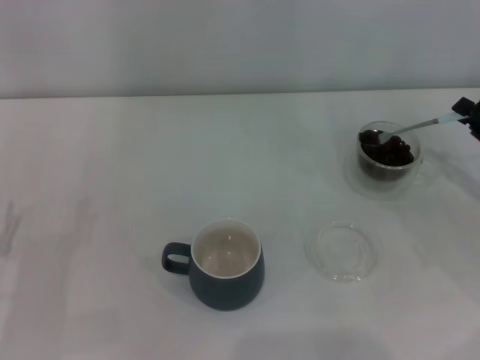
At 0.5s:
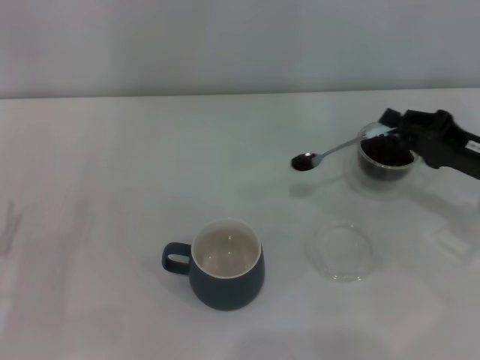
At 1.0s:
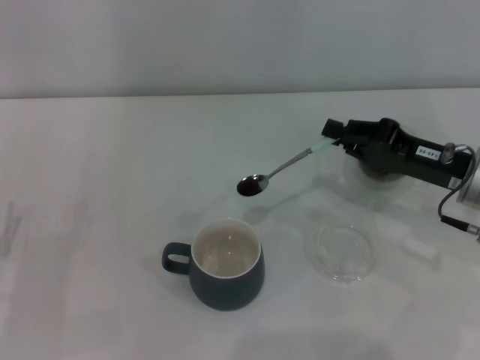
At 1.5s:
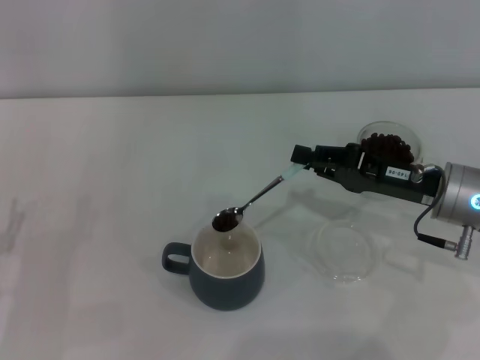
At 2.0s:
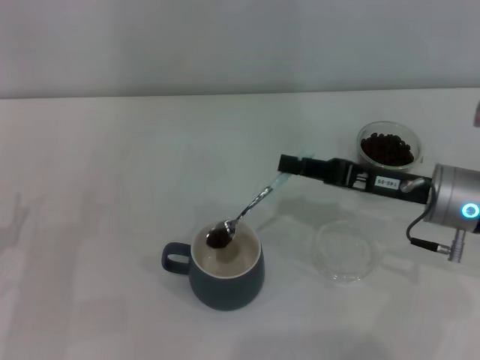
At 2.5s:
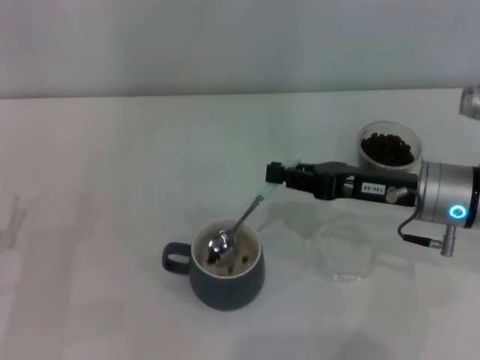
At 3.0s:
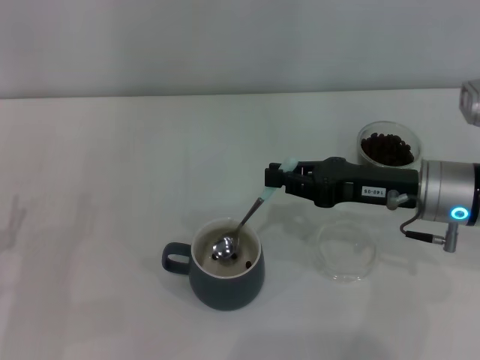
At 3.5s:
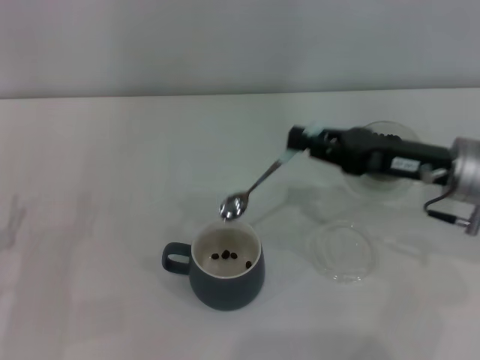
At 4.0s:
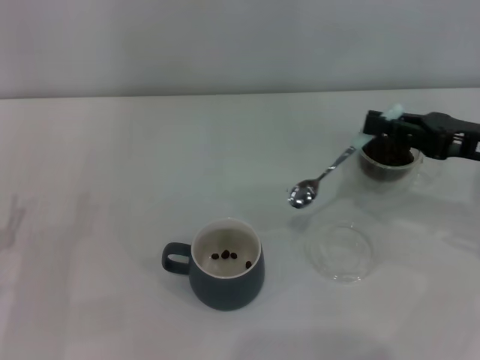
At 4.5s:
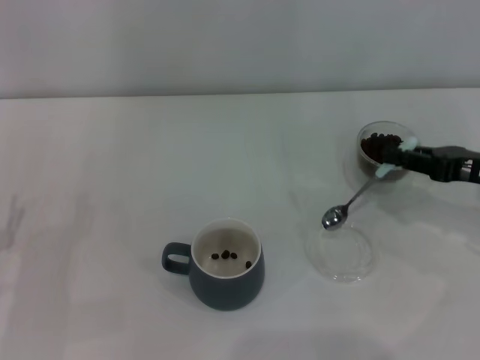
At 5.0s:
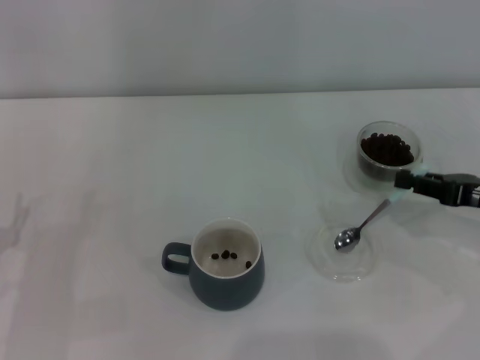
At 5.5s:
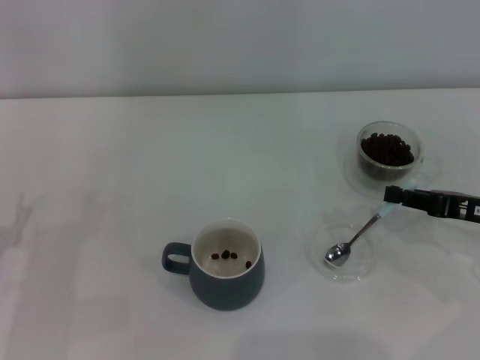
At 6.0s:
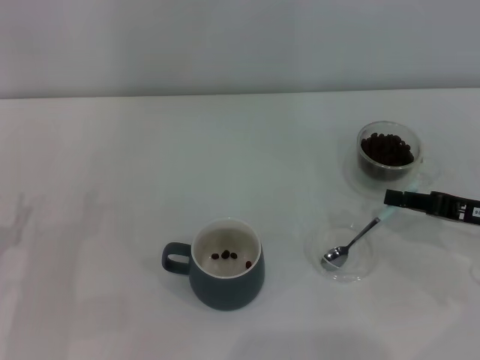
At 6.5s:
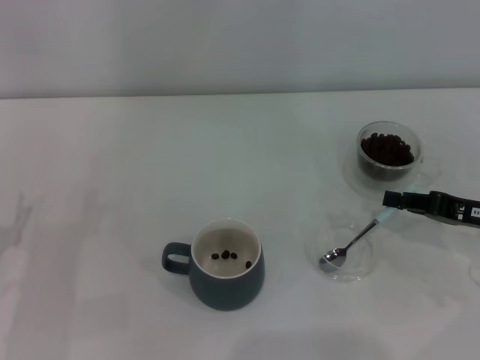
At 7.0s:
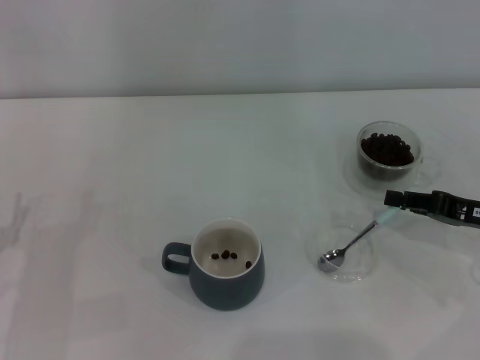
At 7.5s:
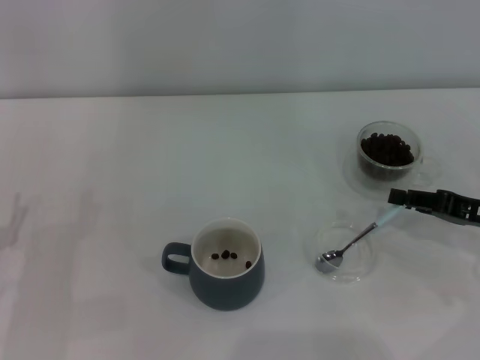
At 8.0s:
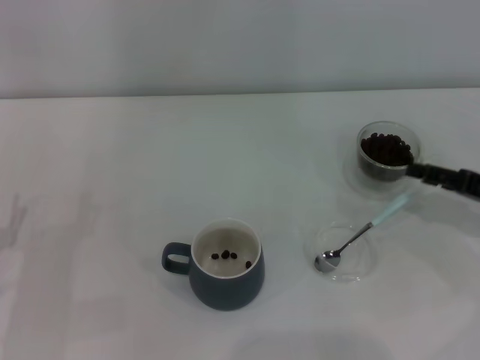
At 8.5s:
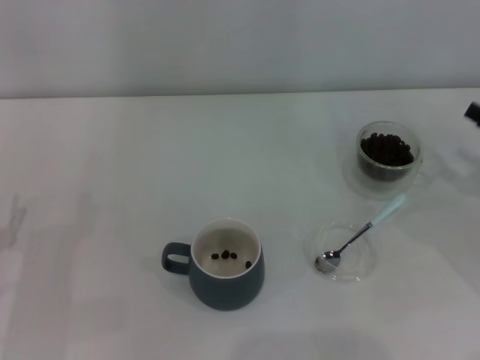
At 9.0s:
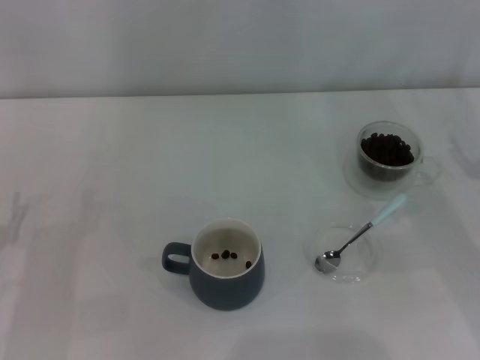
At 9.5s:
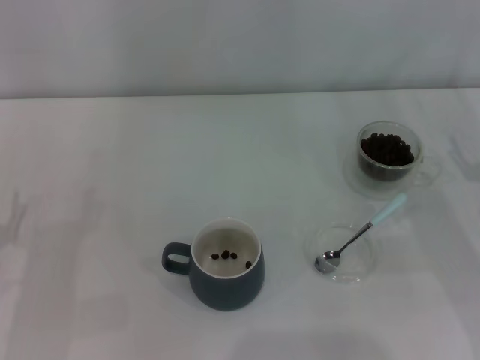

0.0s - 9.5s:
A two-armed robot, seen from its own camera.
Task of the whole recording: Use a blue spoon to take out the coffee beans from the glass and pour them into the gray cup.
Step, 0.0s - 3.5s: Scoop a spoonful of beans into the cup with the right gripper.
Step, 4.0s - 7.5s: Place the spoon back in its original place with the right gripper.
0.0s - 2.0s: The right gripper moves to the left, some 15 cm.
2.0s - 4.0s: The right gripper goes about 10 cm to the right.
4.0s - 5.5s: The right gripper shifts roughly 5 cm downward.
7.5s - 9.5s: The right gripper opens up.

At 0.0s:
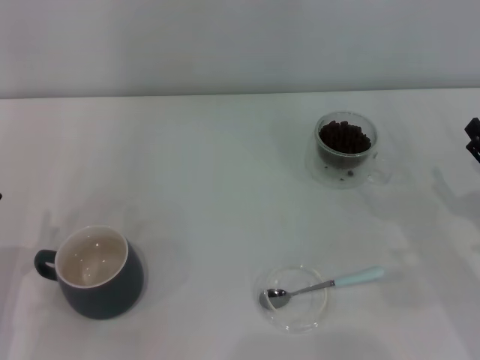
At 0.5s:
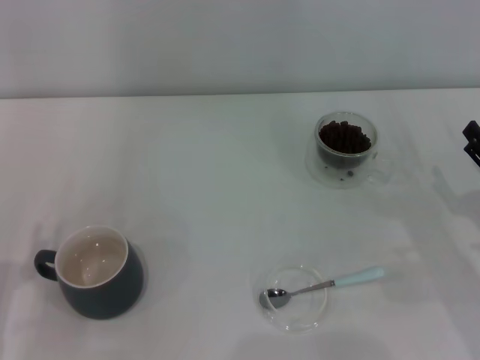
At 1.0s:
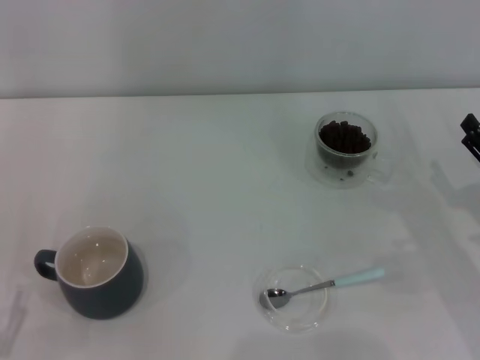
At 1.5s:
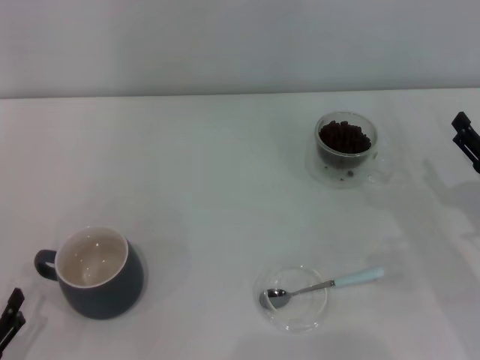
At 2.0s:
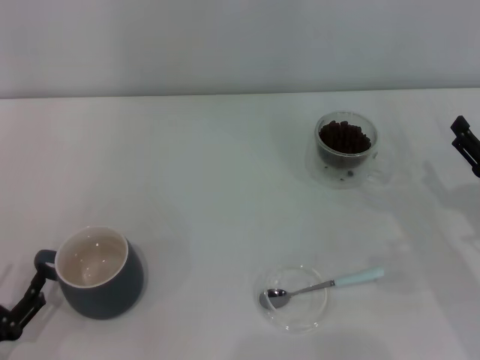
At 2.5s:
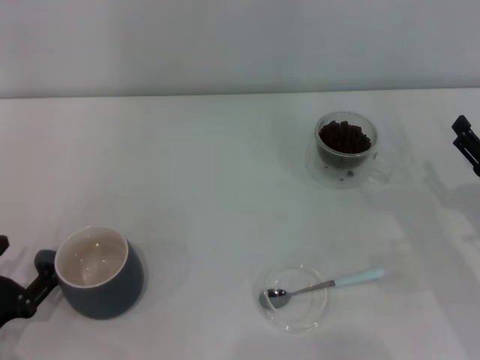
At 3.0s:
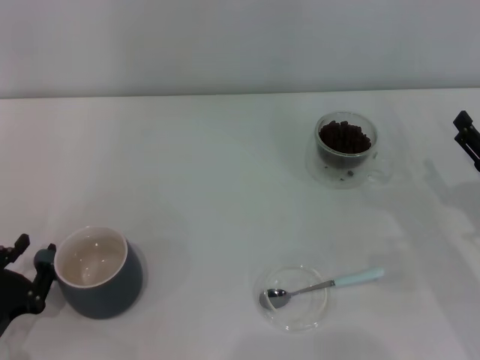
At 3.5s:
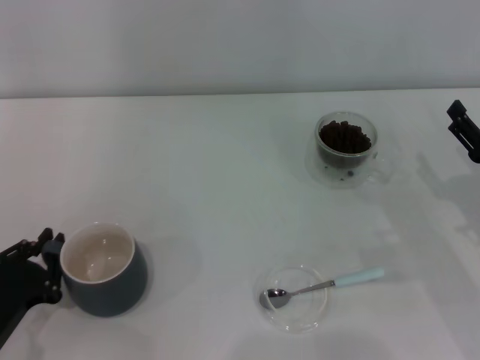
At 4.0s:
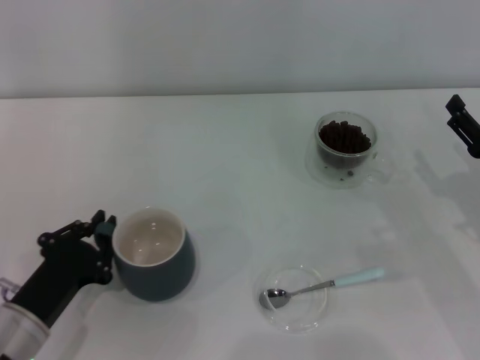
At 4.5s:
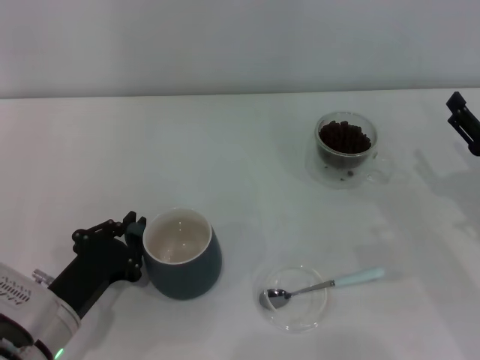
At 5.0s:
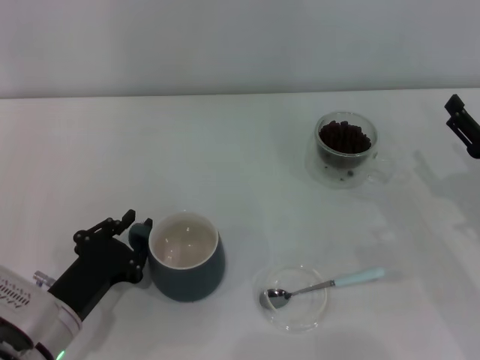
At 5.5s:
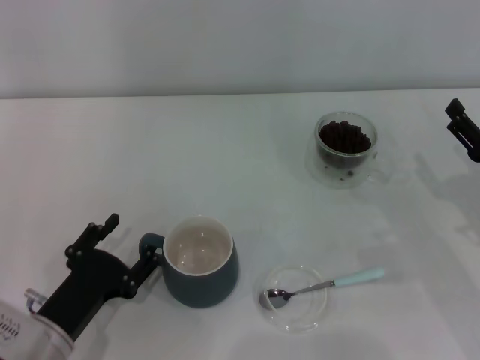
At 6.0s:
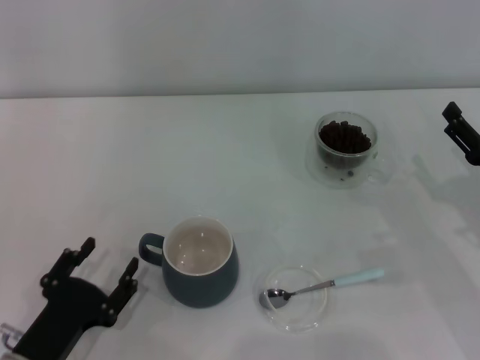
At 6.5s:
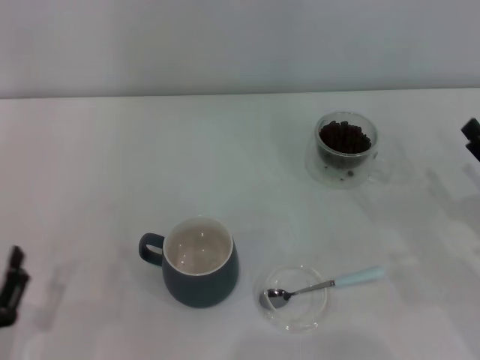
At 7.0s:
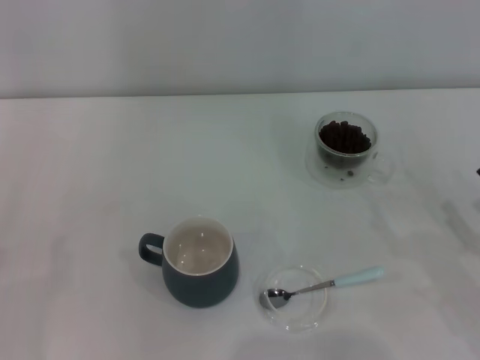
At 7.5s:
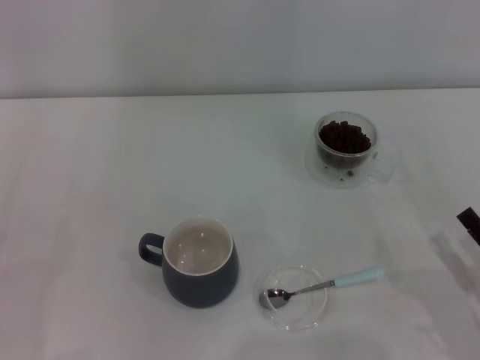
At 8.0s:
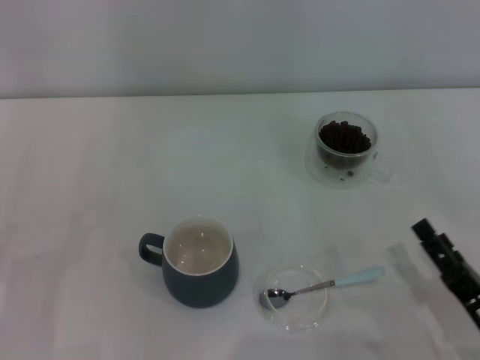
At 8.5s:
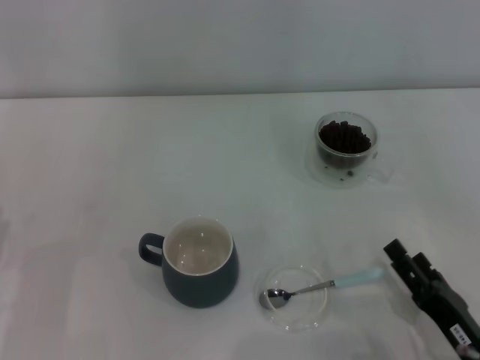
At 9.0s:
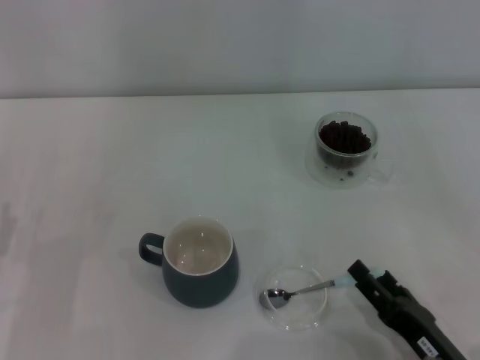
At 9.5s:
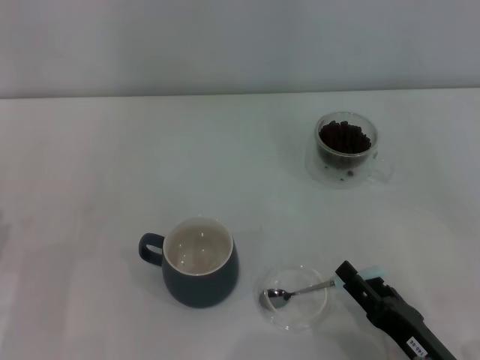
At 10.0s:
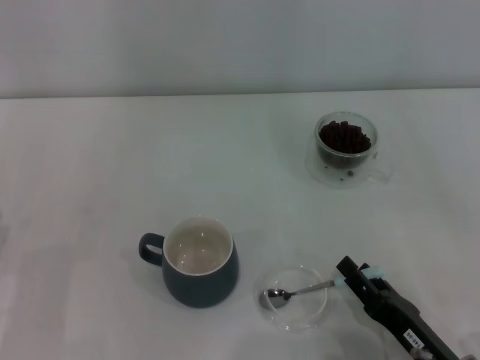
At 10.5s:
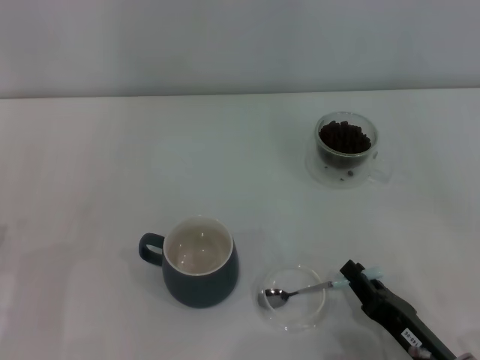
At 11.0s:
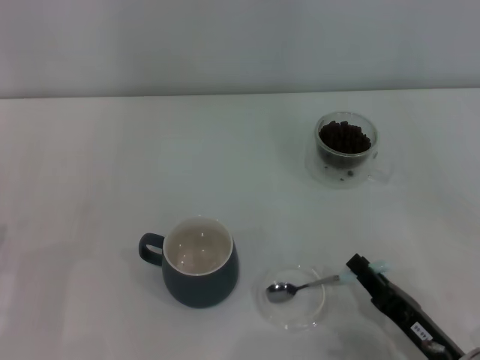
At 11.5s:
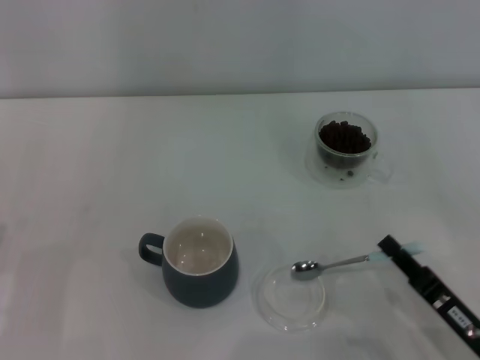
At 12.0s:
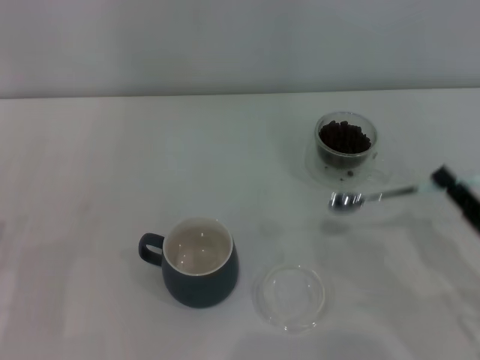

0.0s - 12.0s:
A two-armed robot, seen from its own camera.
Task of the whole recording: Use a blue spoon to take out the coffee beans from the glass and pour them into the gray cup.
Step, 0.0s - 6.0s: Move the cup to the center of view with the left gripper.
Step, 6.5s - 11.5s: Pick up the spoon with the right gripper.
2.0s - 4.0s: The left gripper is displaced to the right and forward by approximately 10 cm, and closes up.
4.0s - 6.0s: The left gripper opens its fingers.
6.0s - 8.0s: The right gripper moves backward and to the left, roughly 15 cm. Meanwhile the left gripper moves to the left, some 10 cm.
8.0s - 10.0s: The right gripper ends up roughly 5 cm from where it was, and closes its fingers.
10.0s - 12.0s: The right gripper is displaced to the right by about 10 cm, and closes its fingers.

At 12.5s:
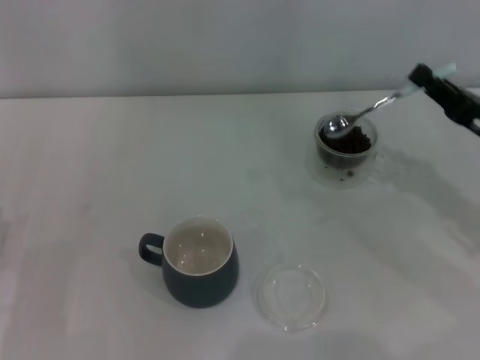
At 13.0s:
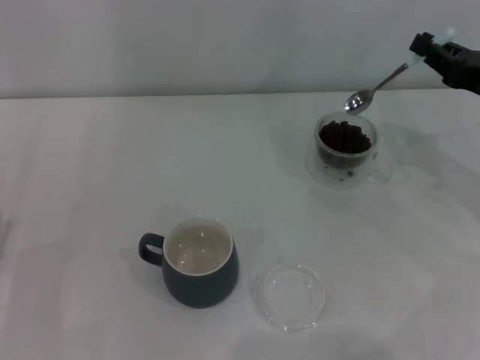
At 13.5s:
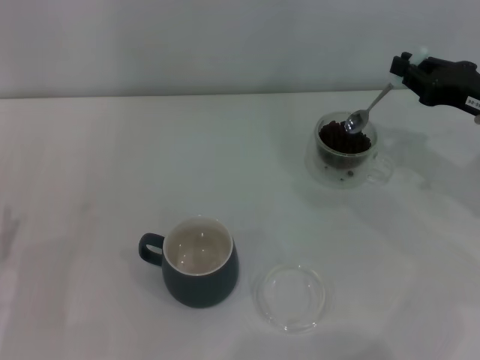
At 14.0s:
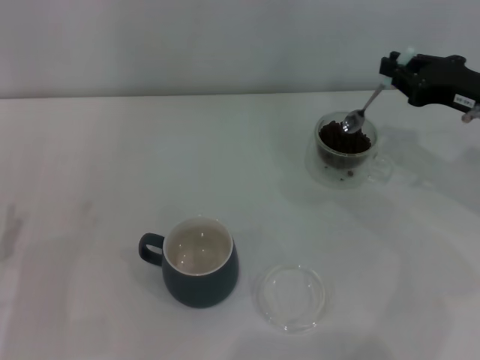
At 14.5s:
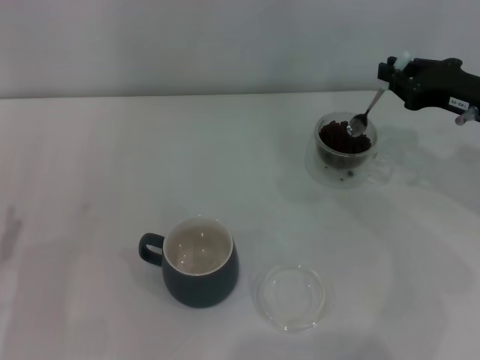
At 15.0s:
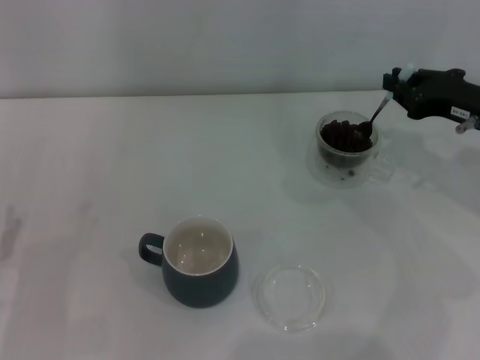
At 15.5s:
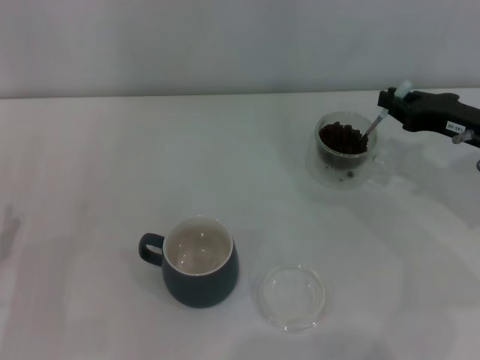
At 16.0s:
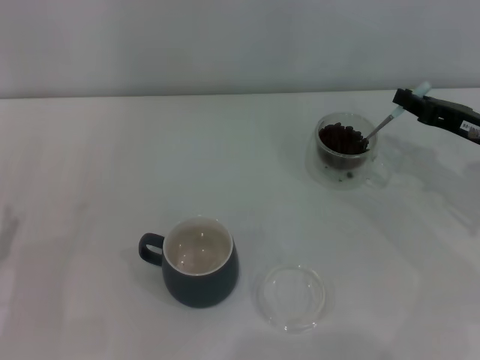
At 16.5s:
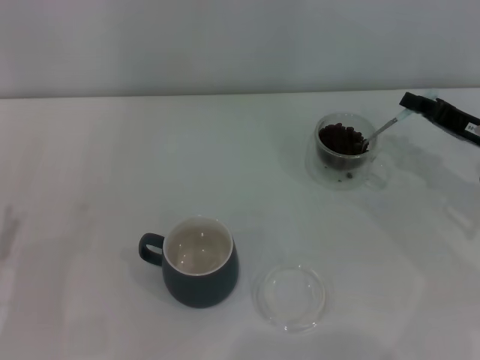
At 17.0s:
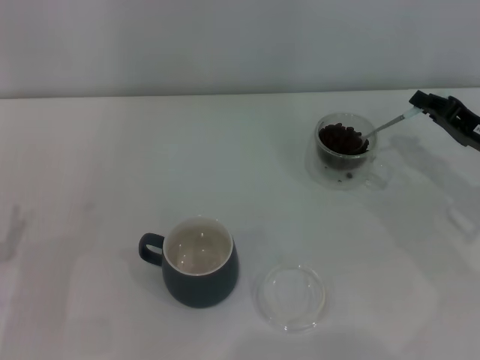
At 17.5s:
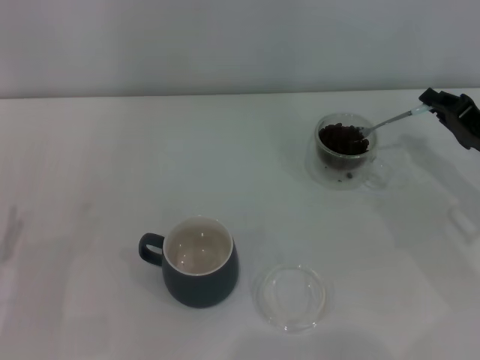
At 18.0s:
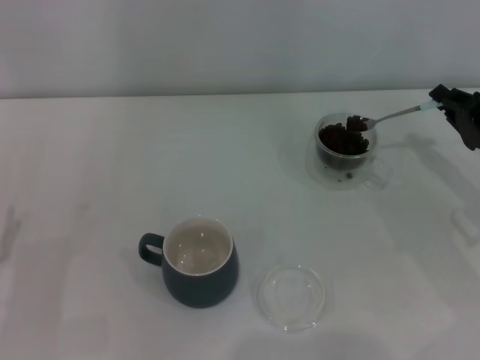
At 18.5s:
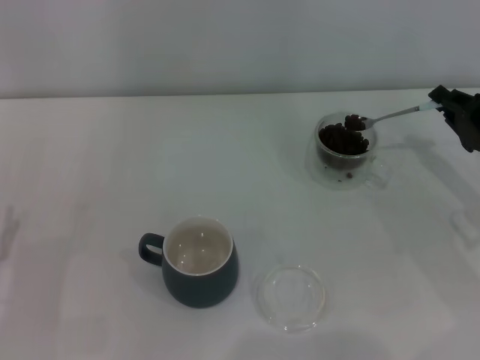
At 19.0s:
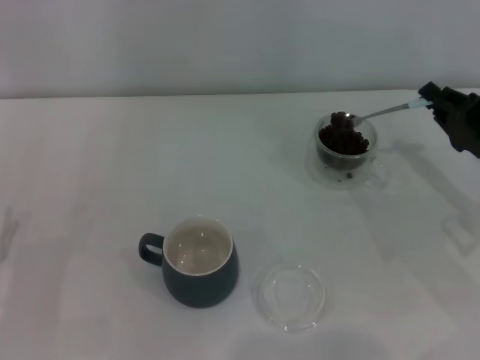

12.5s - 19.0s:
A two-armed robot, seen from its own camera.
Task of the whole recording: Use a blue spoon to take out the coffee beans from the glass and pour them into the gray cup.
12.5s - 14.5s: The right gripper moves forward, some 5 cm.
14.5s - 17.0s: The right gripper travels downward by approximately 5 cm.
17.0s - 19.0s: The grippers move only a little.
